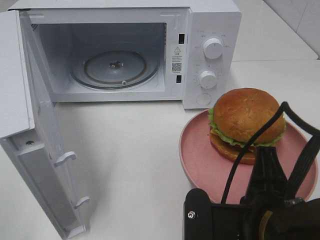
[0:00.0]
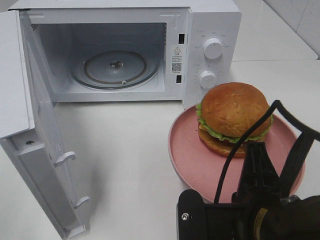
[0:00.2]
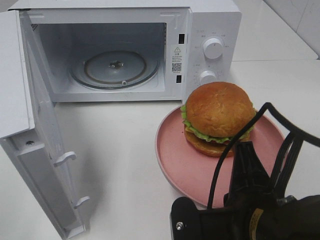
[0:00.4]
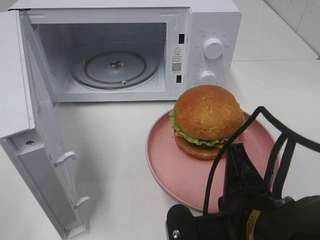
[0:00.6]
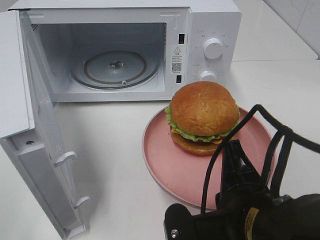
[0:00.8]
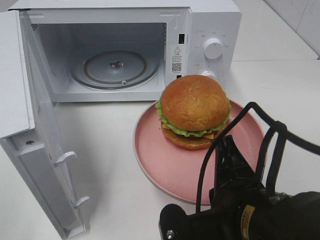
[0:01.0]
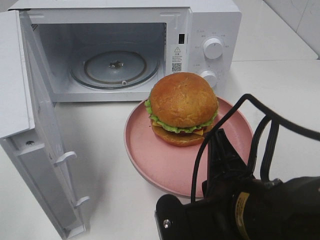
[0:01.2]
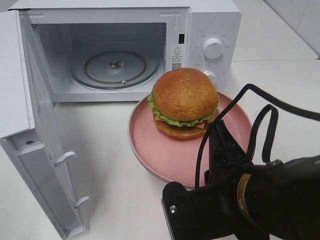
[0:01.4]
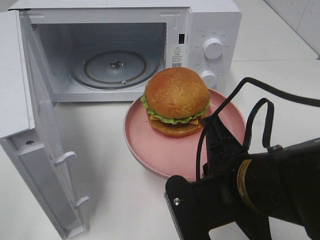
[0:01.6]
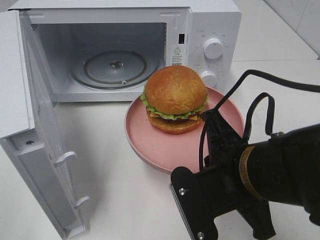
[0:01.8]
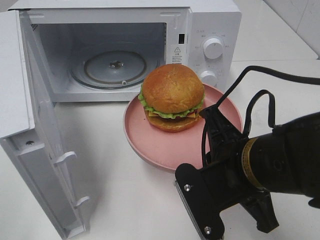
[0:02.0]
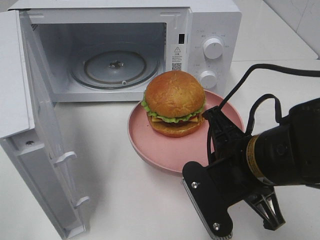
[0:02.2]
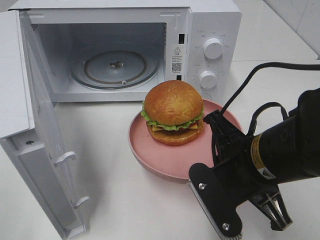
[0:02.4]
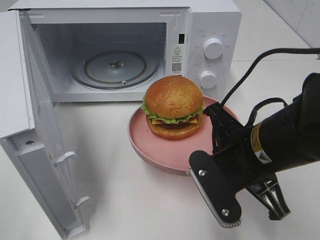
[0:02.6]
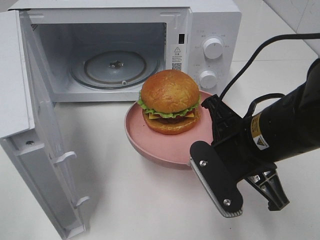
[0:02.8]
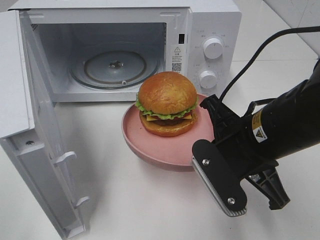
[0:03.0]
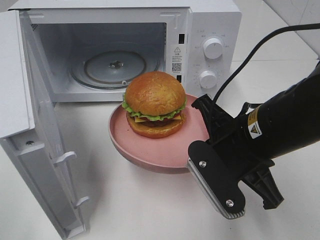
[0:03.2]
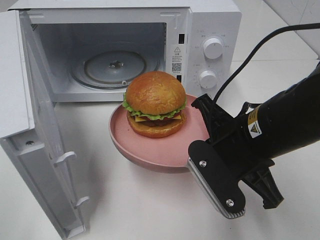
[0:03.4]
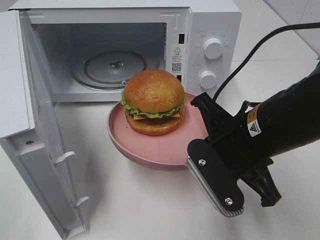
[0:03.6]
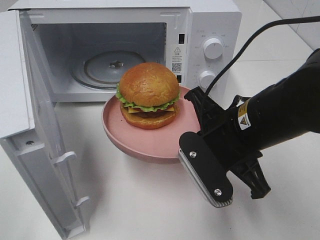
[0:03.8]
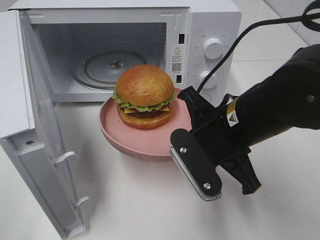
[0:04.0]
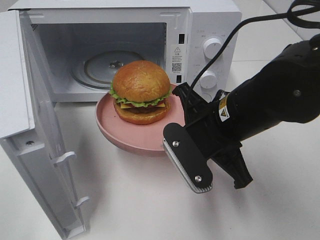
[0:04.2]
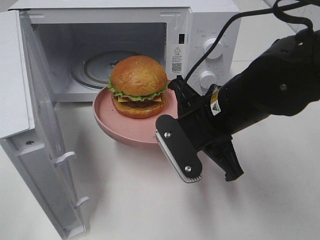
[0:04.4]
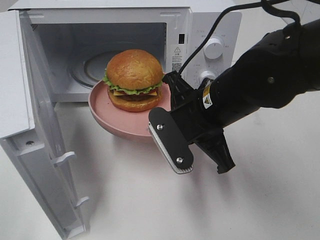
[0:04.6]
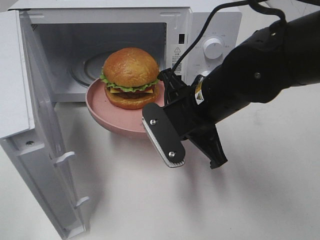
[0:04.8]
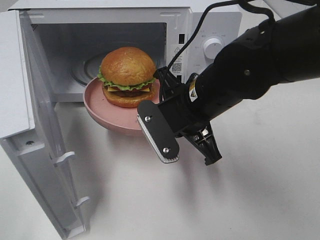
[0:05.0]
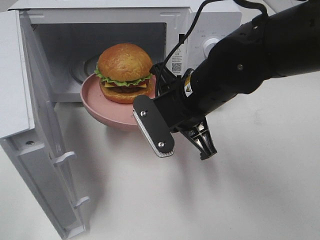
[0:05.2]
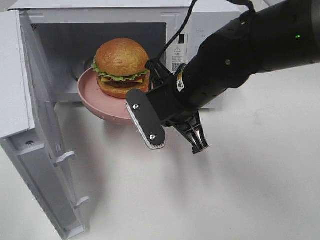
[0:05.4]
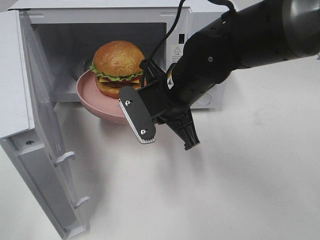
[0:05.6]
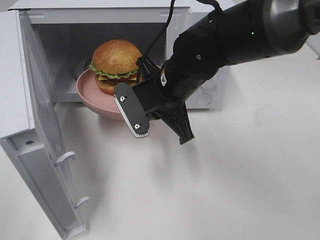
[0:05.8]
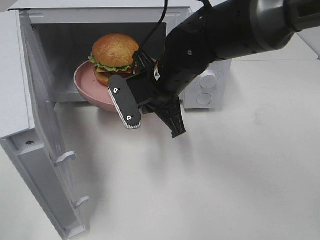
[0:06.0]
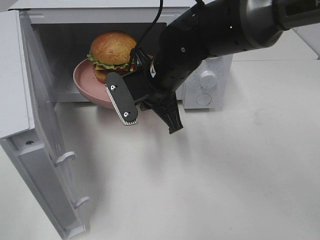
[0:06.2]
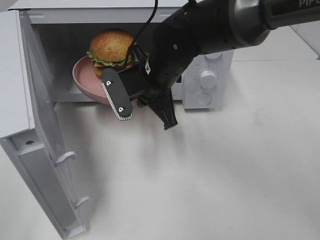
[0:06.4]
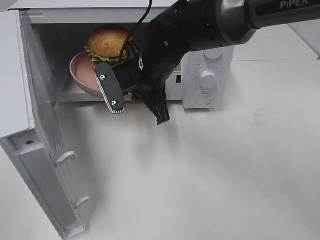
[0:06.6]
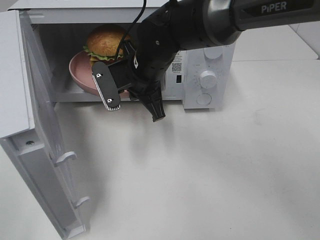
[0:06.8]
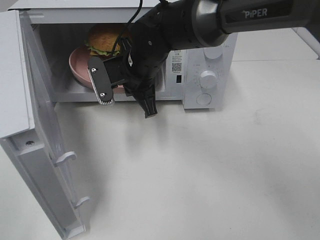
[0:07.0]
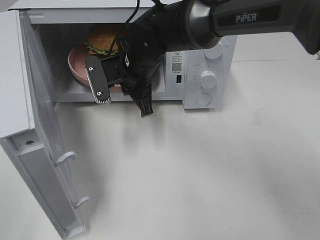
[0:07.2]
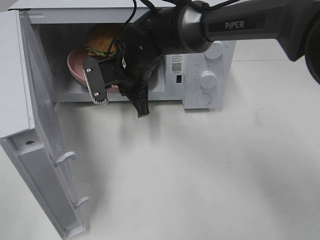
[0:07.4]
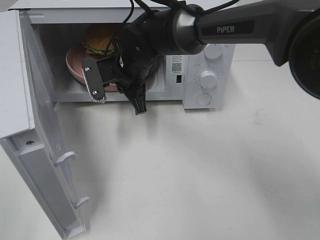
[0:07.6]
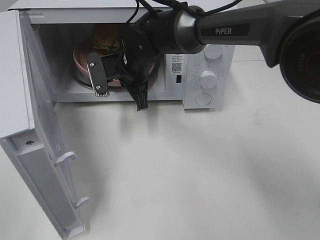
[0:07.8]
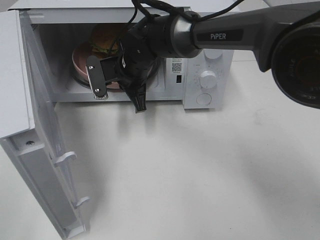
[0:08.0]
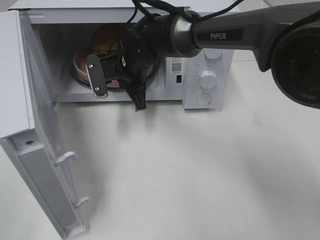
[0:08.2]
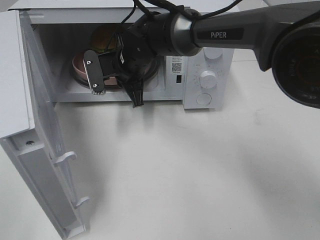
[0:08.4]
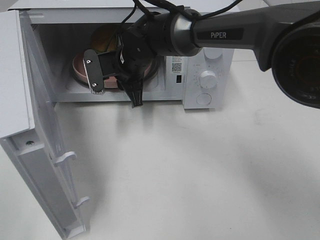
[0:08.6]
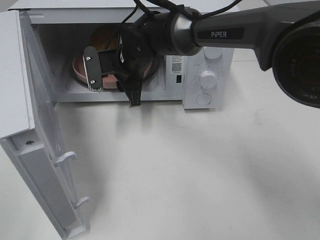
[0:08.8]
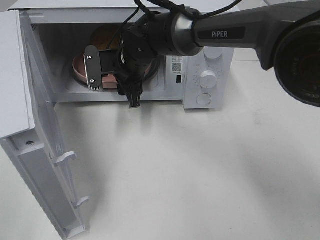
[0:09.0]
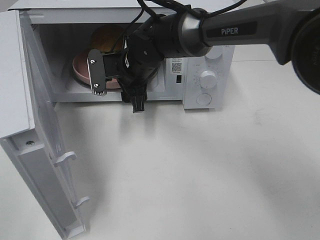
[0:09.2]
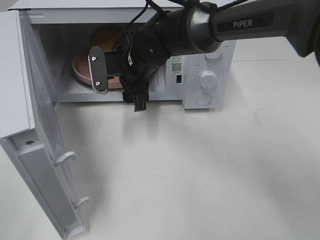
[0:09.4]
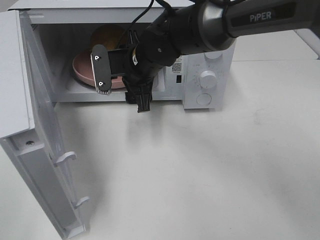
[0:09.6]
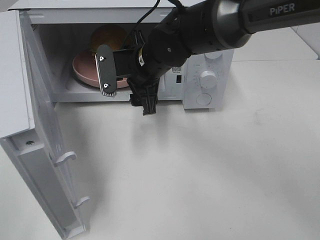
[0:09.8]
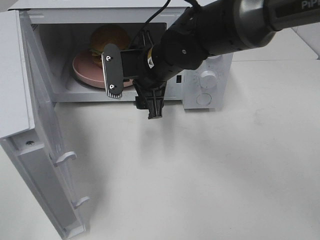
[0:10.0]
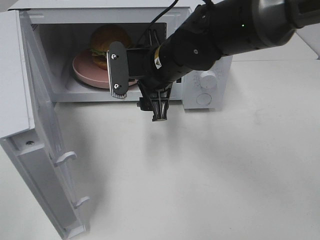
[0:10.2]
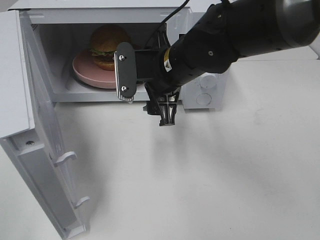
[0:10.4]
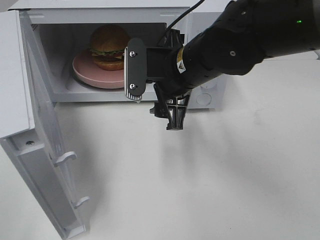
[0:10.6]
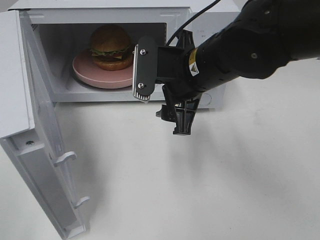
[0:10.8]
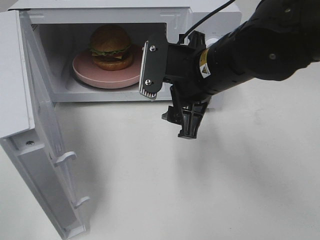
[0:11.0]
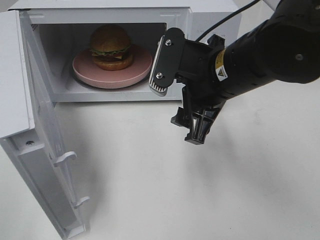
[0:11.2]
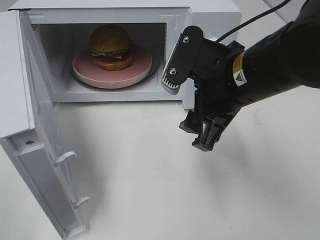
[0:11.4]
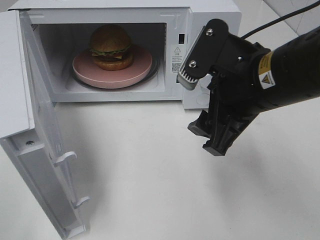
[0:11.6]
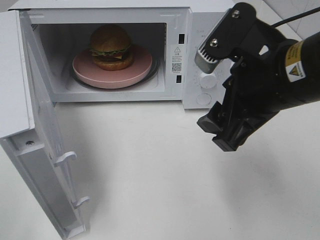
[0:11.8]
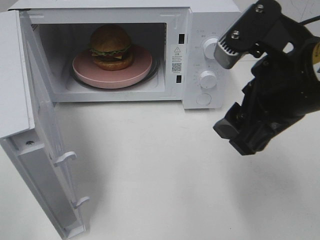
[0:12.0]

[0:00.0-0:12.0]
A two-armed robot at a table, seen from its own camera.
Task of the whole recording: Heat the burger.
Step, 0:00.0 to 0:08.6: Right hand: place the plate in the microwave.
0:00.0 to 0:01.6: The right gripper is displaced forward by approximately 5 cm.
0:01.6 to 0:03.0: The right gripper is displaced forward by about 5 cm.
0:03.0 to 0:04.4: The right gripper moves about 5 cm.
0:04.4 to 0:06.0: The right gripper shifts roughly 10 cm forward and to the left.
0:06.0 to 0:07.6: The right gripper shifts about 10 cm forward and to the left.
0:07.6 to 0:09.0: The right gripper opens.
0:09.0 to 0:10.4: The right gripper shifts some 10 cm backward and to the right.
0:10.4 to 0:12.0: The right gripper heads backward, to the right and upward, covering about 20 cm.

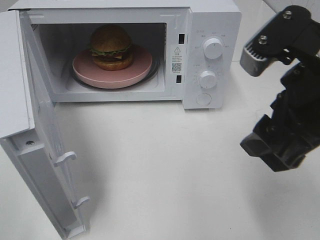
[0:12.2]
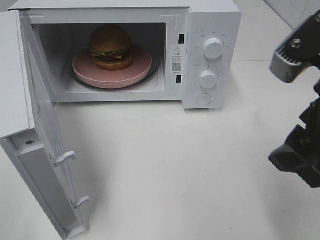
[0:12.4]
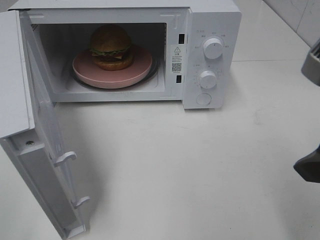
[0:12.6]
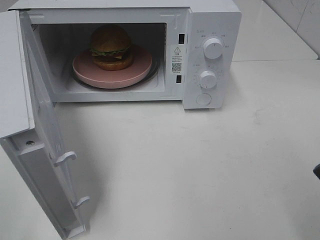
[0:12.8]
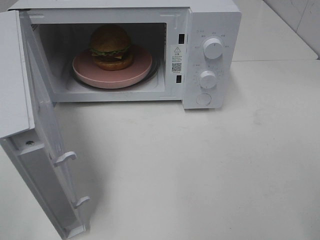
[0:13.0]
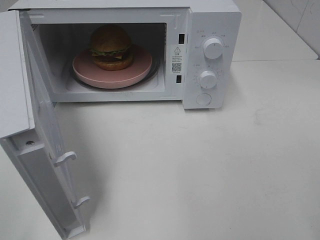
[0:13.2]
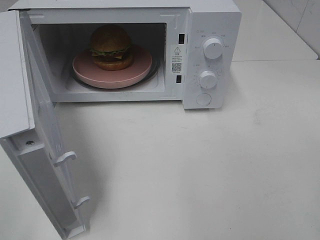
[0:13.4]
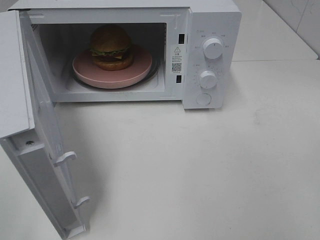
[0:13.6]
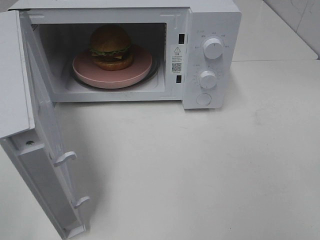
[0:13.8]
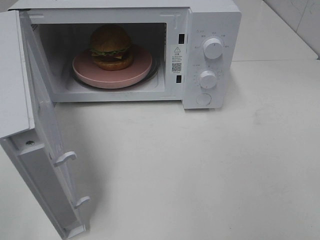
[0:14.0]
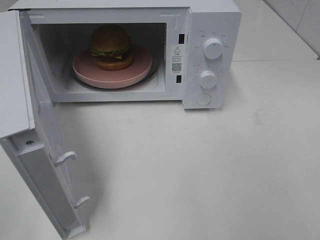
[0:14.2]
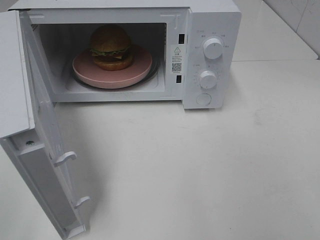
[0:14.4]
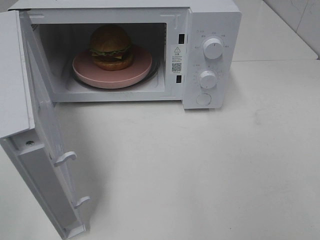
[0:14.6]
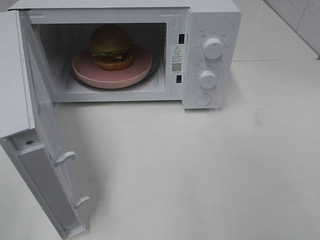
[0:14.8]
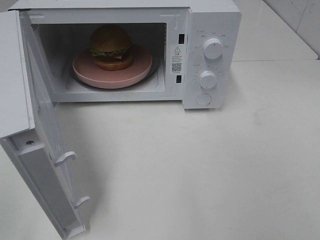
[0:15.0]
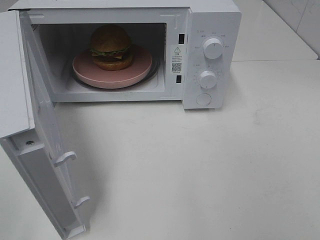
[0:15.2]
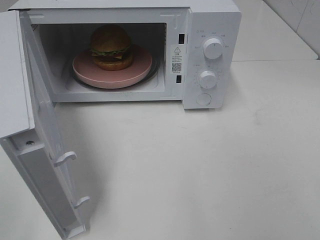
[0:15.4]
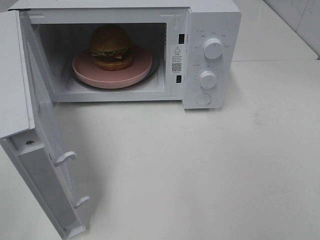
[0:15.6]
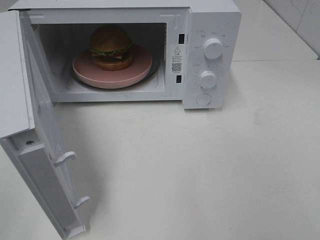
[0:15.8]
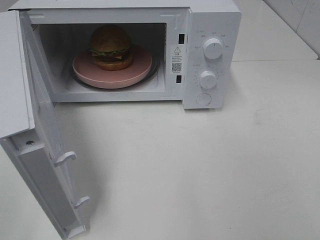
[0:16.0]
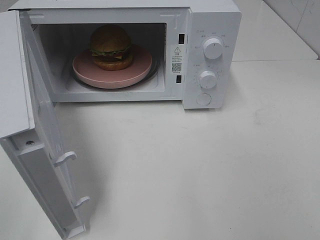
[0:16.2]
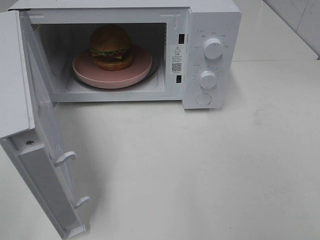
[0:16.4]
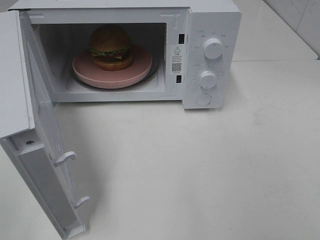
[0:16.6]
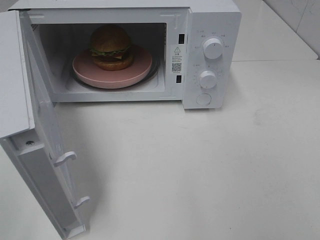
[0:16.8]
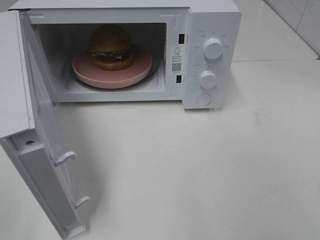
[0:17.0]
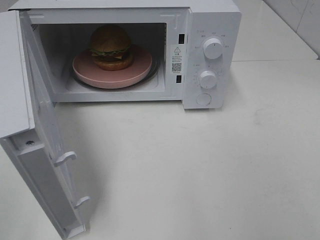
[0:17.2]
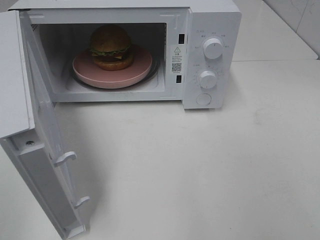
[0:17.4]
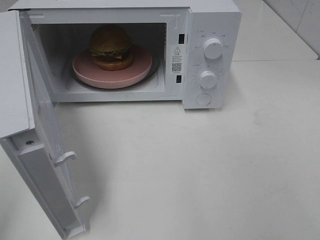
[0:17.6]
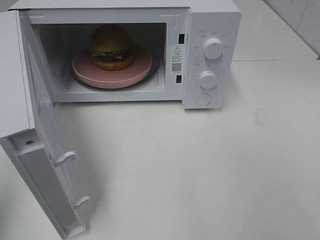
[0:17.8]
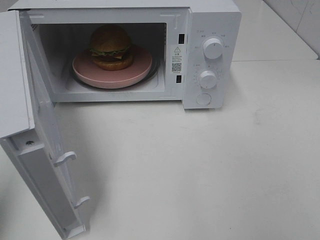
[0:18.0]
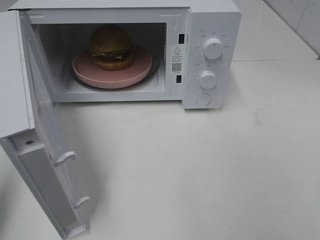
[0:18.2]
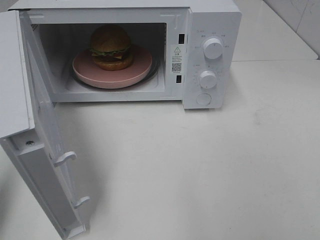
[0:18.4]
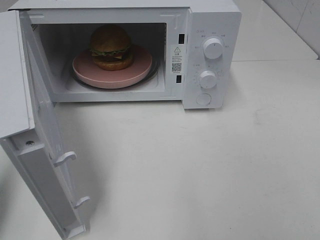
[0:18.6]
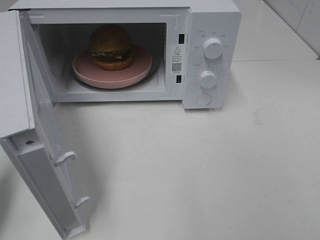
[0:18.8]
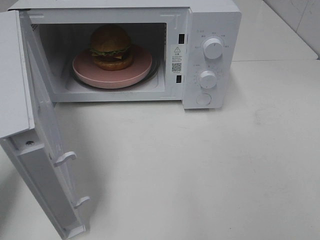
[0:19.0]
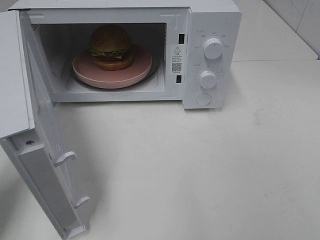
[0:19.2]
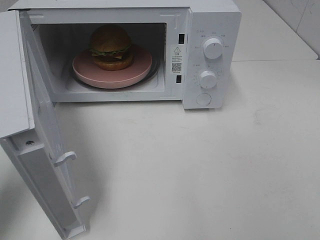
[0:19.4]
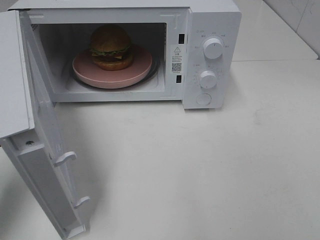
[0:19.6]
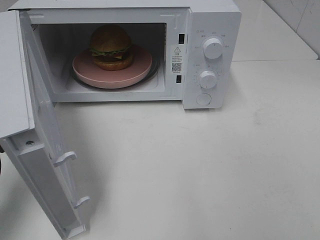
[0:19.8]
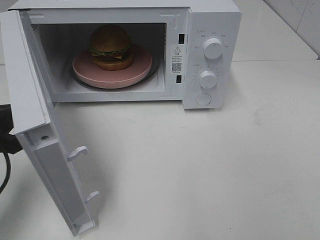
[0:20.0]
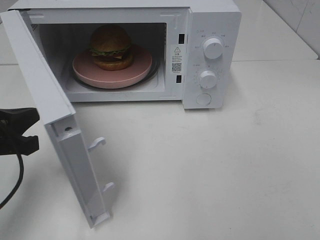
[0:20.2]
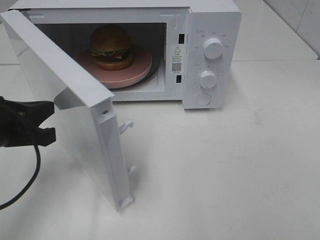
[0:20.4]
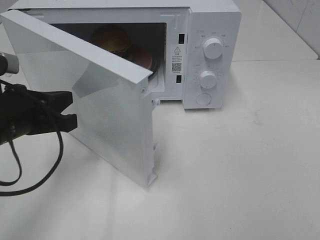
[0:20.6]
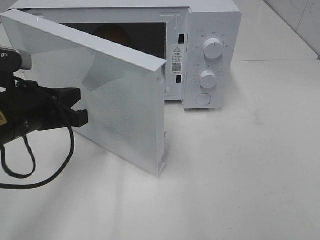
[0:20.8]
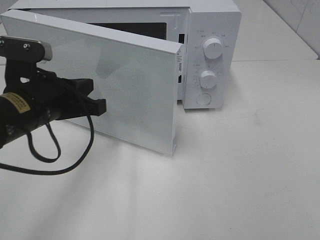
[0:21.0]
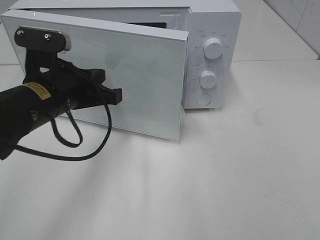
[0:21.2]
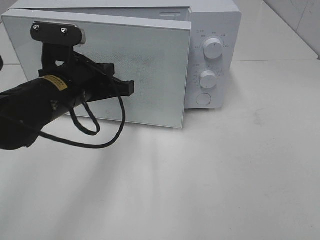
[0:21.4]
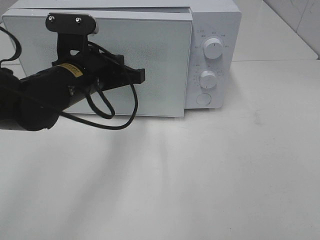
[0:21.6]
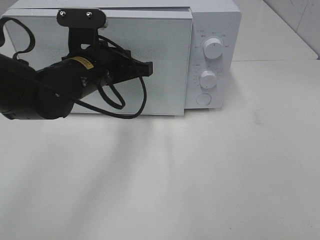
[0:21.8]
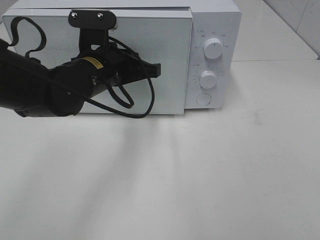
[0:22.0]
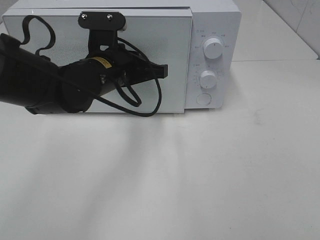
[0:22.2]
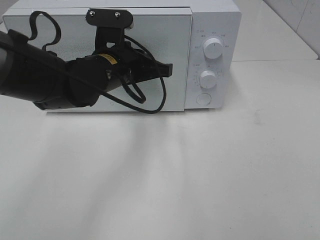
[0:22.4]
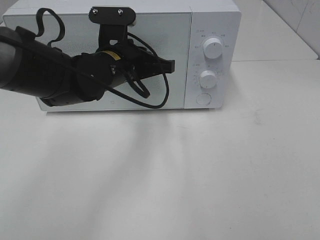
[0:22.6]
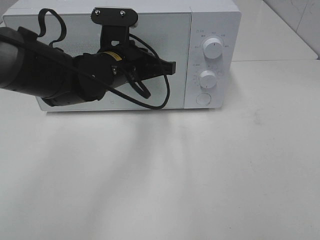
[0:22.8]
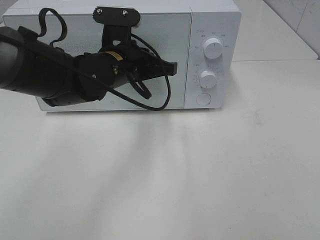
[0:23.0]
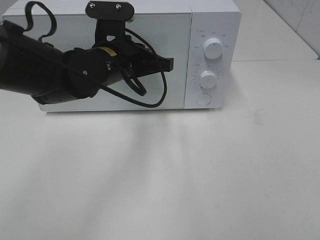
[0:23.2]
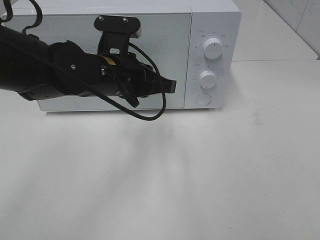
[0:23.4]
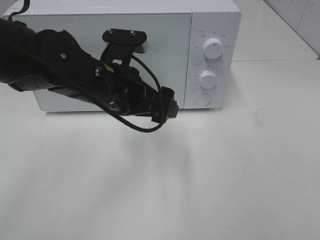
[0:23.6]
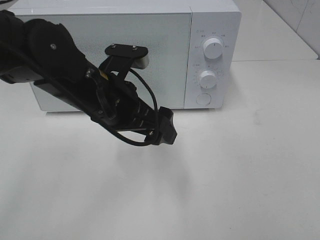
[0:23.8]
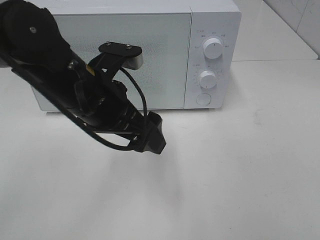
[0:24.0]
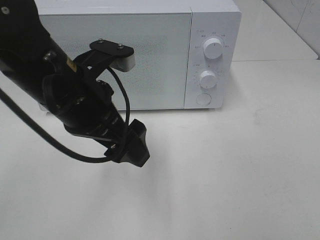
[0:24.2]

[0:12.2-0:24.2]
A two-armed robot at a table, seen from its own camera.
Task of the whole recording: Heat the burger.
Step, 0:12.2 to 0:23.2: Left hand: close the microwave door.
0:12.2 to 0:13.8: The right gripper is displaced to the right and backward by about 15 cm.
0:15.2 to 0:16.6: The two grippers keep their place.
0:16.6 to 0:18.2: The left gripper is displaced forward by approximately 10 cm, and closes.
0:18.2 to 0:19.8: The left gripper is displaced downward and forward by roughly 10 cm.
0:19.8 to 0:21.2: The left gripper shifts about 15 cm to the right and forward.
0:21.2 to 0:22.6: The left gripper shifts some 10 cm to the right and forward.
0:22.6 to 0:24.2: The left gripper heads backward and upward, covering roughly 10 cm, and opens.
